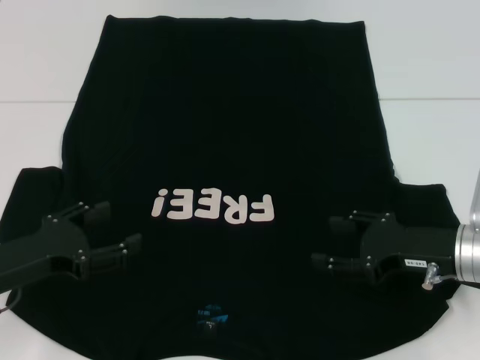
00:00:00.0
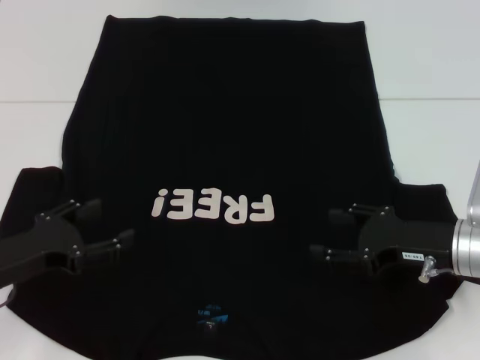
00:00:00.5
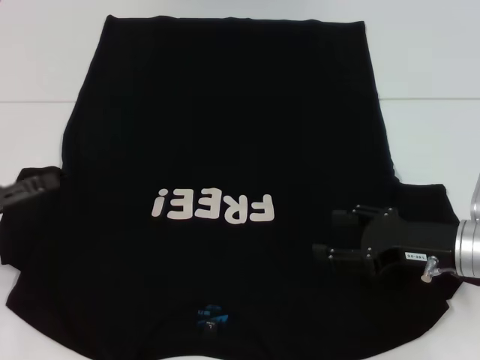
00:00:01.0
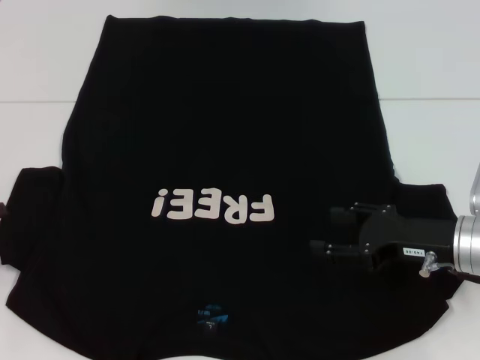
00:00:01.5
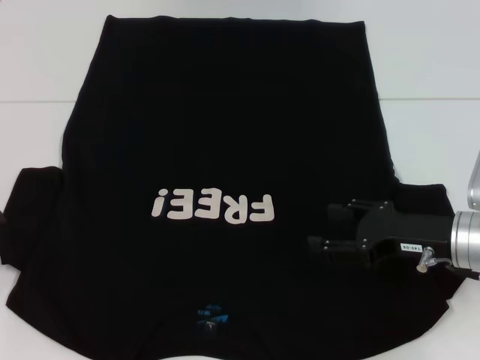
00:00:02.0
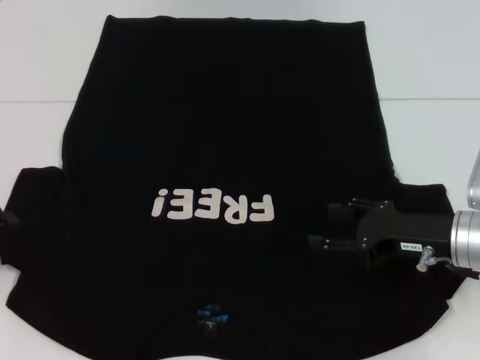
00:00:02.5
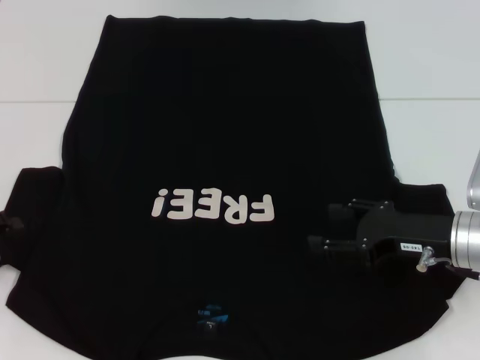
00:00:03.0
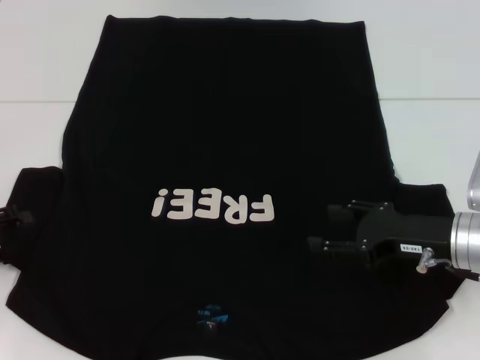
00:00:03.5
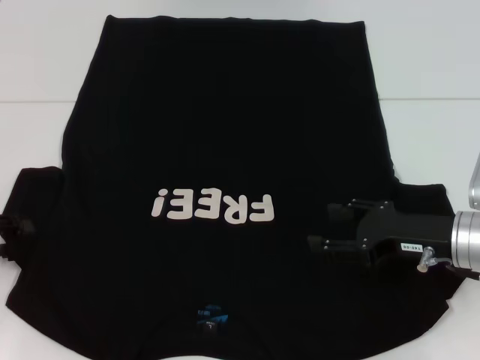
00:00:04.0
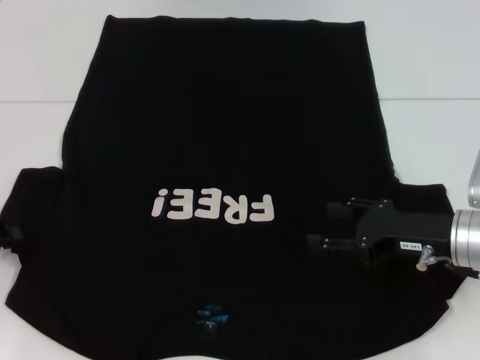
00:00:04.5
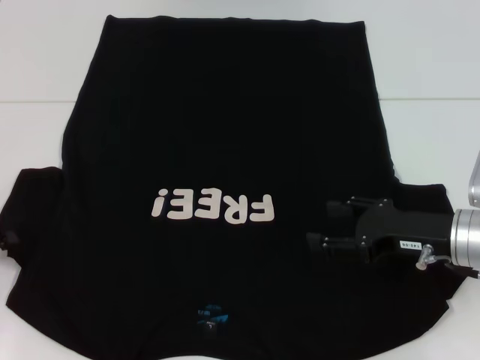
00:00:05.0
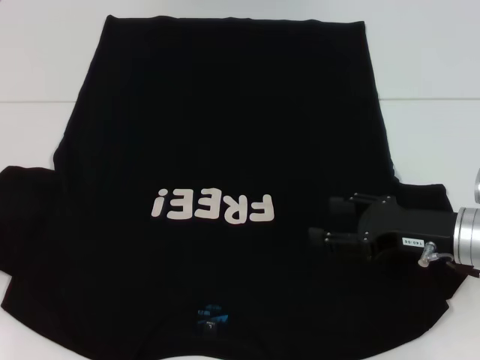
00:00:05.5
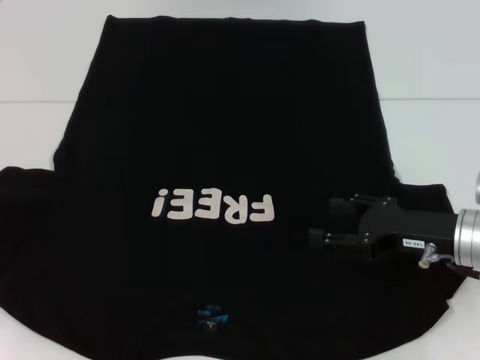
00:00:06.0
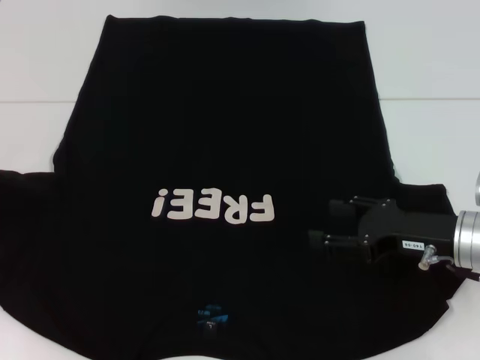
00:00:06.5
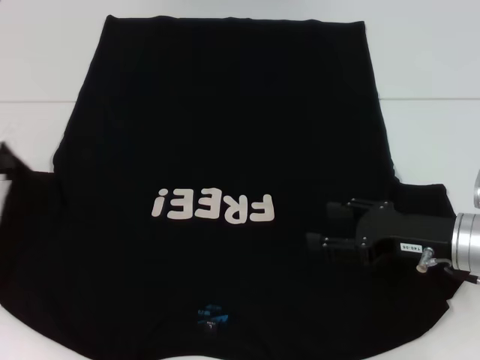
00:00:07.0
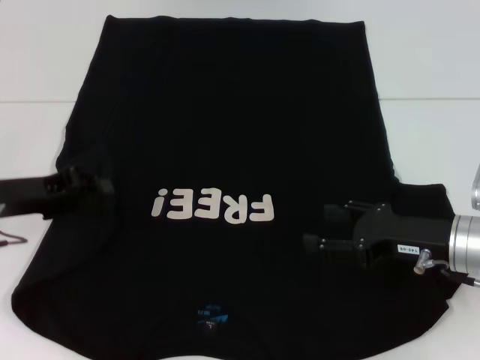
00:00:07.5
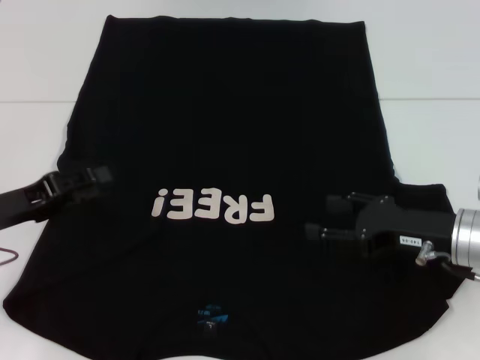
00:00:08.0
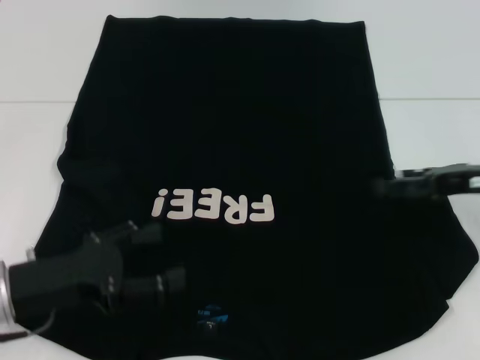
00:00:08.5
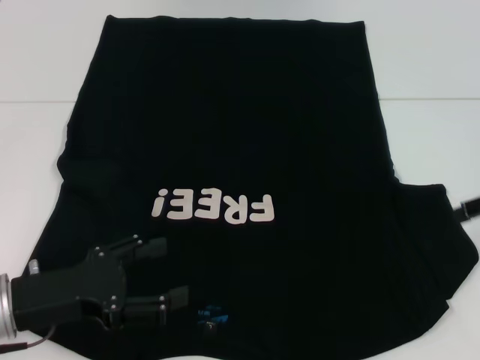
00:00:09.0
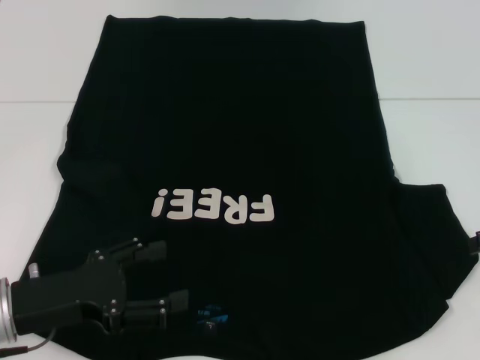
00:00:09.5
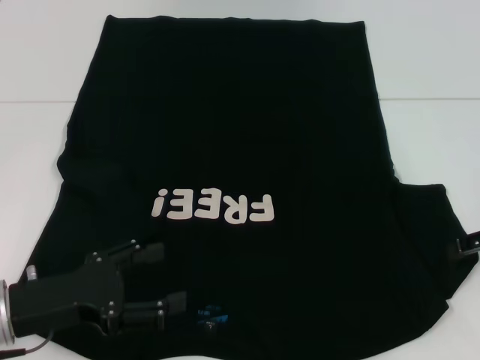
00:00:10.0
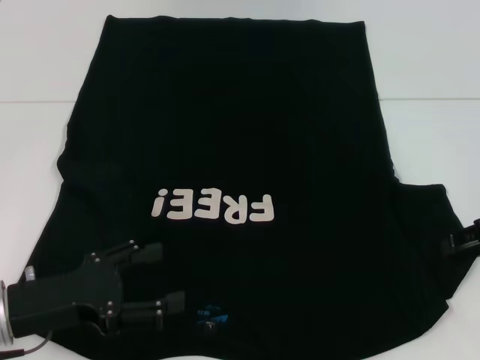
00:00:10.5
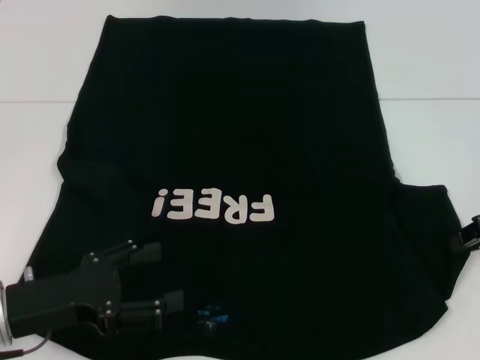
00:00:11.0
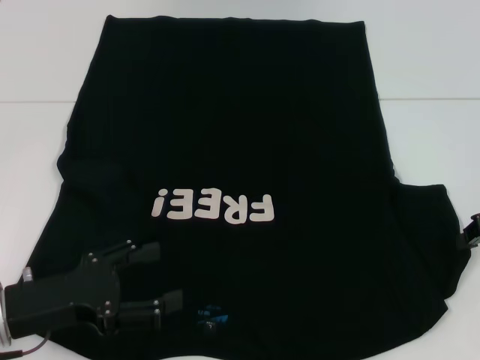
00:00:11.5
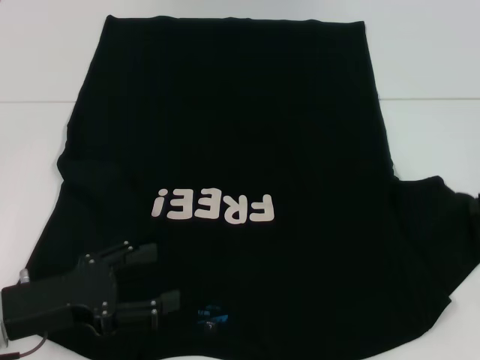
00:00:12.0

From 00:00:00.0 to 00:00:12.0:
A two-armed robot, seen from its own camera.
Step, from 00:00:00.0 to 00:00:07.5: Fold the bottom left sleeve with your left hand.
From 00:00:00.0 to 00:00:02.0: The left gripper goes about 10 cm to the left.
From 00:00:04.0 to 00:00:06.0: The left gripper shifts by roughly 5 cm, and closes its fingers.
From 00:00:06.0 to 00:00:08.0: The left gripper shifts roughly 10 cm to the right, and opens.
From 00:00:08.0 to 00:00:10.0: The right gripper is displaced to the right and upward by some 10 cm, while the left gripper moves backward and to the right, about 10 cm, and opens its fingers.
From 00:00:10.0 to 00:00:12.0: The right gripper closes up.

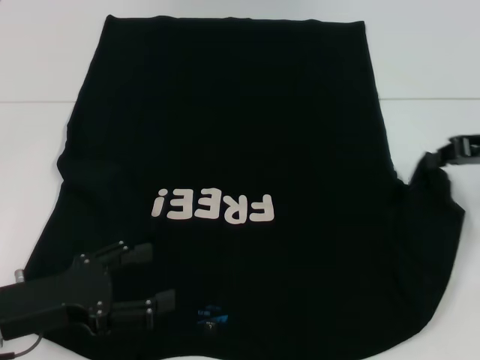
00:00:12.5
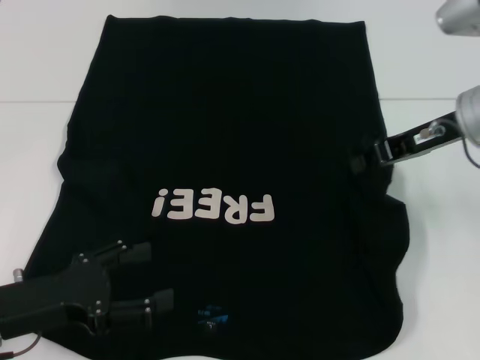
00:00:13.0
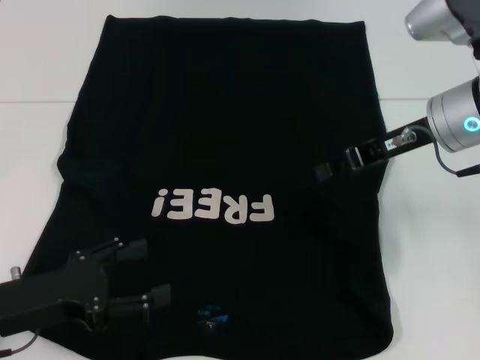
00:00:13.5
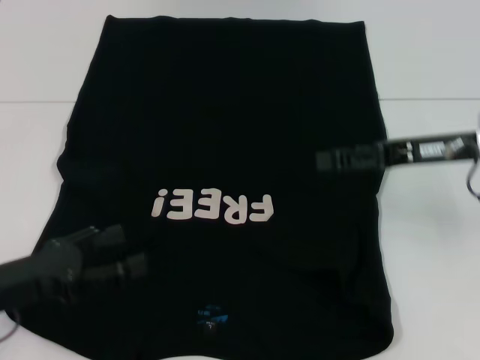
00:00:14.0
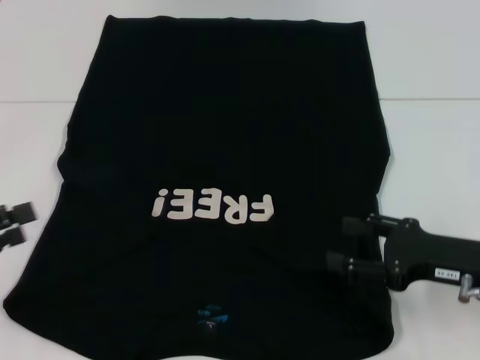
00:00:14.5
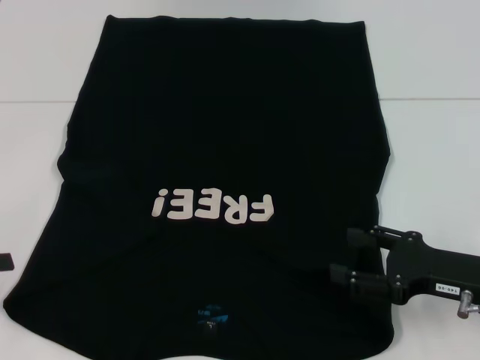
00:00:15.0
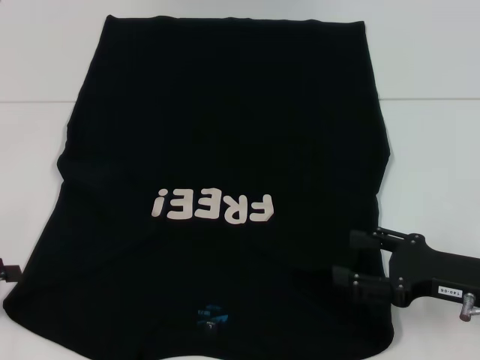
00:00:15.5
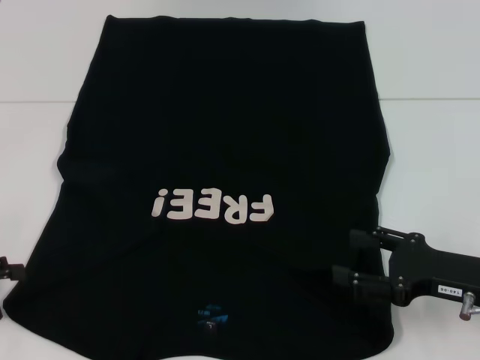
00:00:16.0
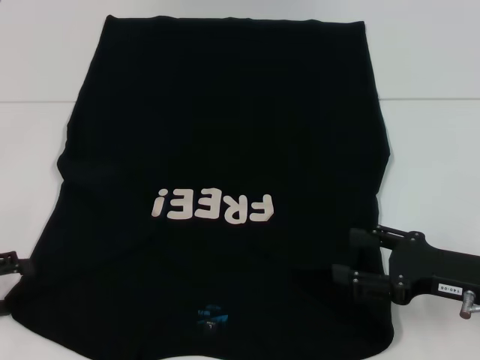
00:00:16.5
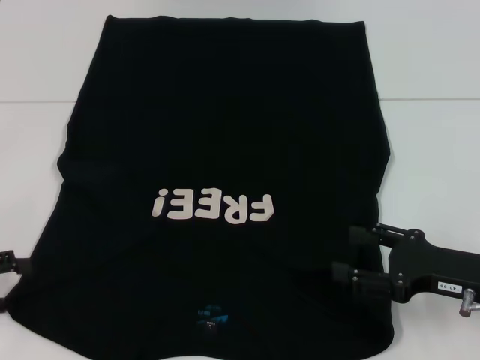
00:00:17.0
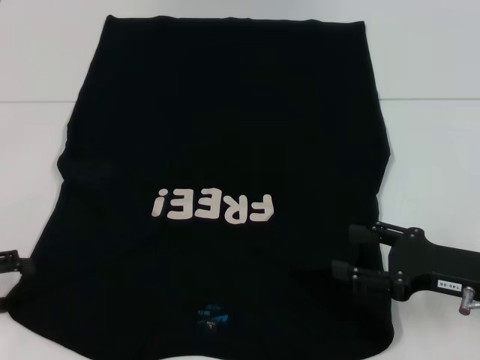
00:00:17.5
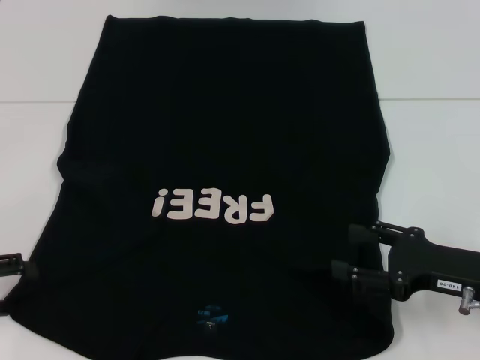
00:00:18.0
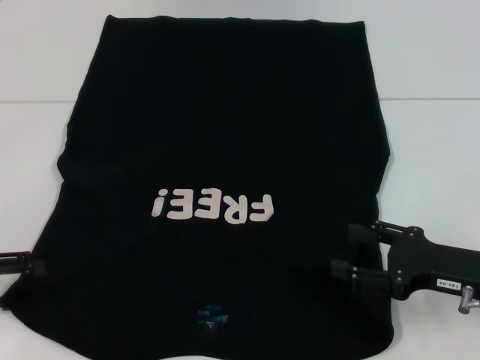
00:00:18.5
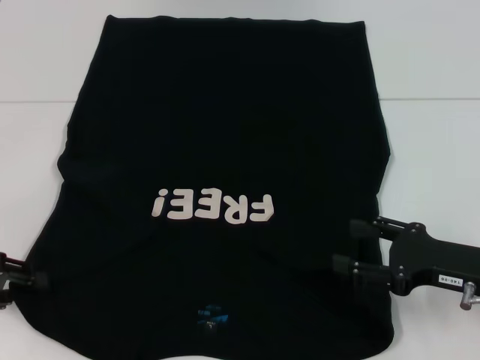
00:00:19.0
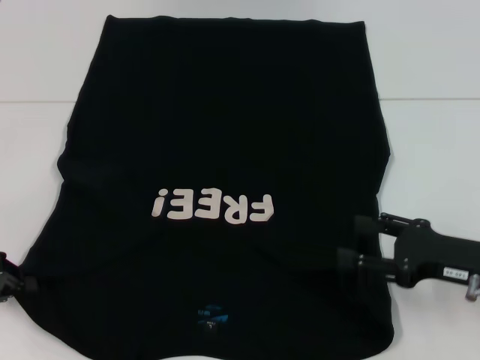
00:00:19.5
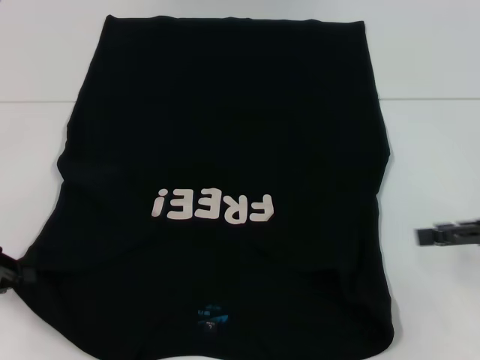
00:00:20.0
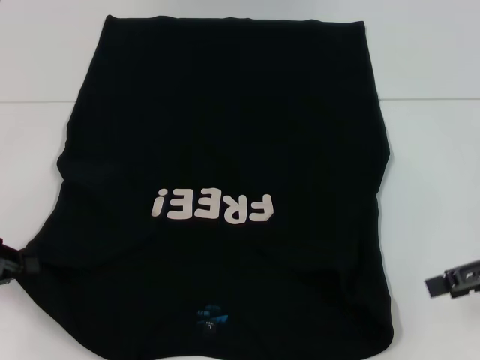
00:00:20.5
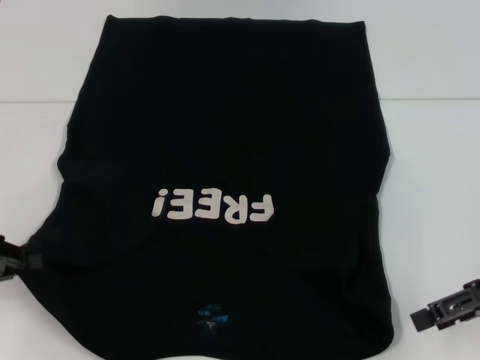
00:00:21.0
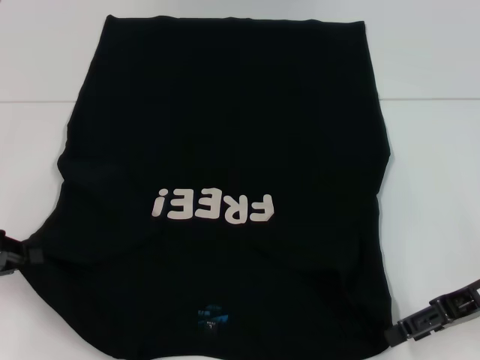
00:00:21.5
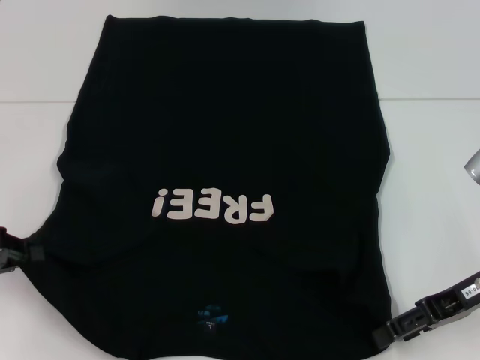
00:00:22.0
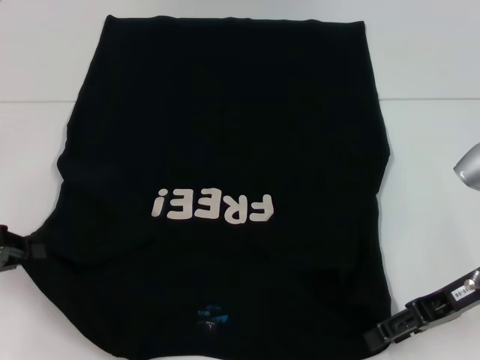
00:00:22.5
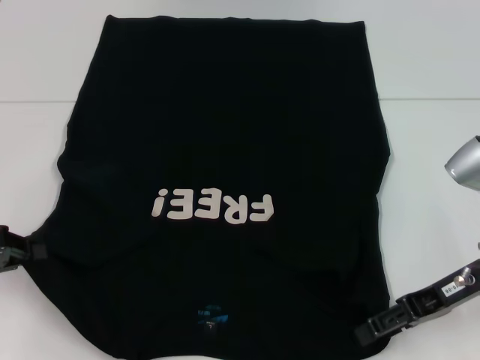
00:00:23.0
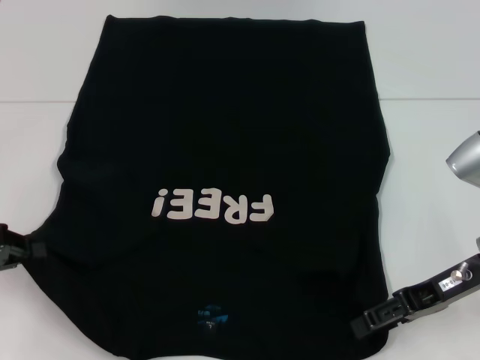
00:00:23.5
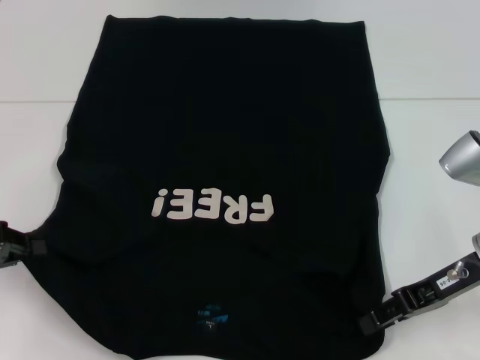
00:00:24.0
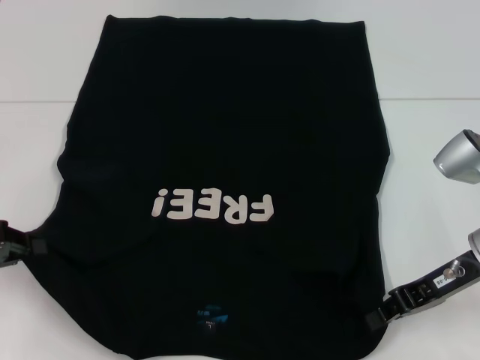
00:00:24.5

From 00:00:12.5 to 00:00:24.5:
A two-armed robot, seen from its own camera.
Step, from 00:00:14.0 to 00:00:19.5: Grab the bottom left corner with your left hand.
From 00:00:12.5 to 00:00:14.5: The right gripper shifts about 15 cm downward and backward, and opens its fingers. The left gripper goes about 10 cm to the left.
From 00:00:16.5 to 00:00:18.5: The grippers make only small movements.
From 00:00:18.5 to 00:00:20.5: The right gripper heads upward and to the right, covering roughly 10 cm, while the left gripper closes.
From 00:00:20.5 to 00:00:22.5: The right gripper is displaced to the left by roughly 5 cm.
From 00:00:22.5 to 00:00:24.5: The right gripper closes.

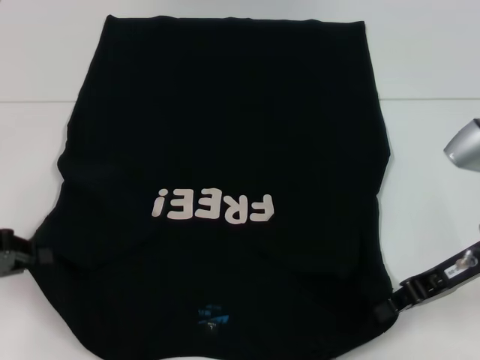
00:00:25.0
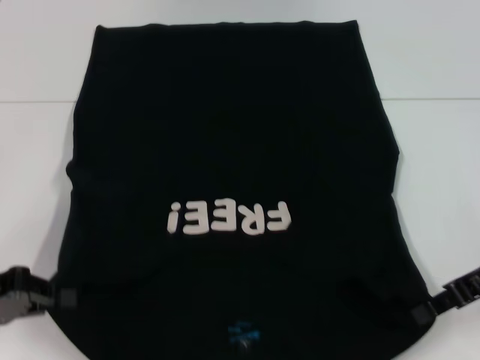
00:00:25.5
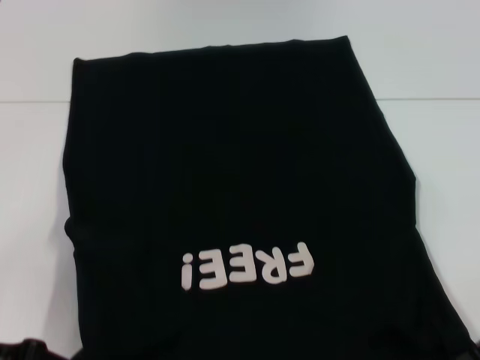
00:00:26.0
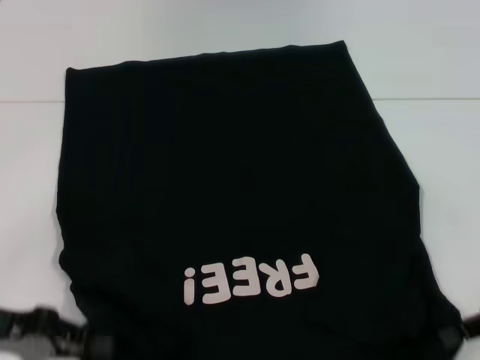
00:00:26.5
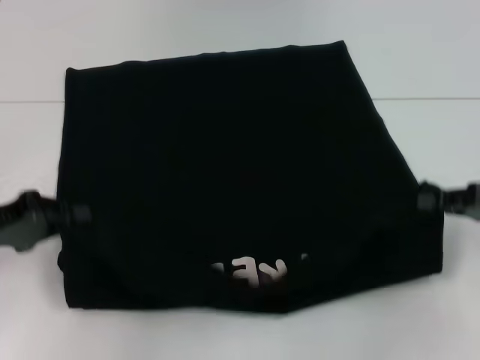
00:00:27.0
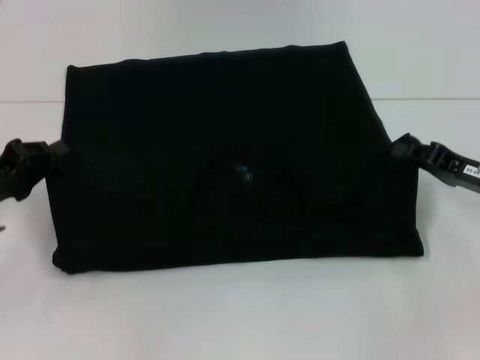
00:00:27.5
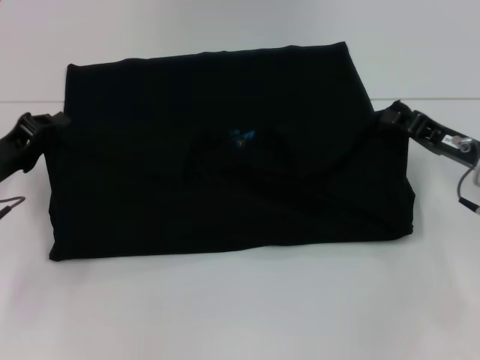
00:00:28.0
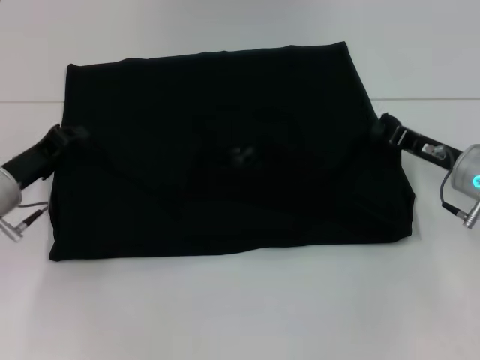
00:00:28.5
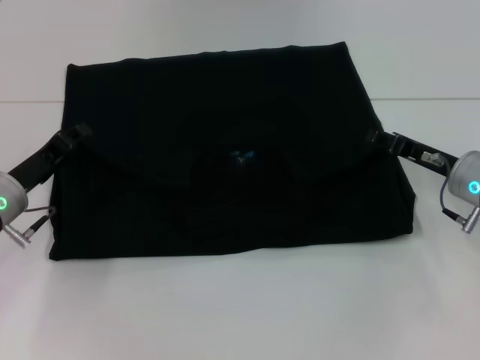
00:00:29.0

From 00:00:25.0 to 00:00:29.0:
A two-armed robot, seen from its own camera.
From 00:00:25.0 to 00:00:27.0: The right gripper moves to the right, approximately 10 cm.
From 00:00:27.0 to 00:00:29.0: The left gripper goes roughly 10 cm forward, to the right and downward. The right gripper travels to the left, forward and downward by some 10 cm.
